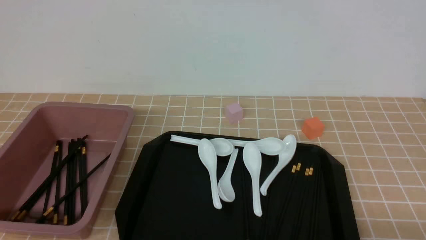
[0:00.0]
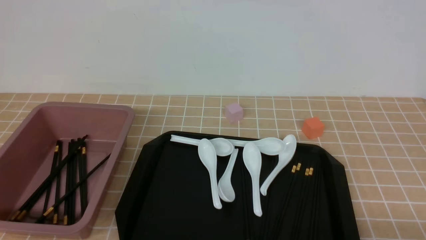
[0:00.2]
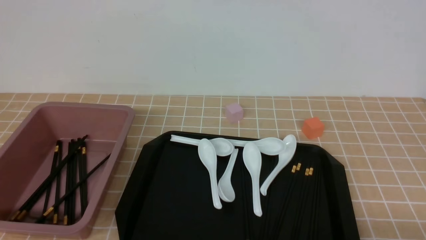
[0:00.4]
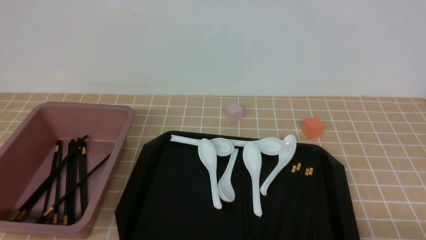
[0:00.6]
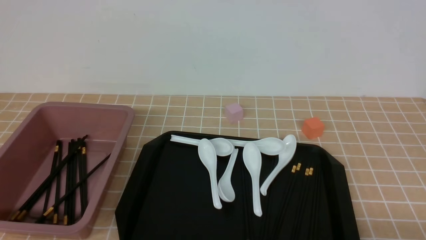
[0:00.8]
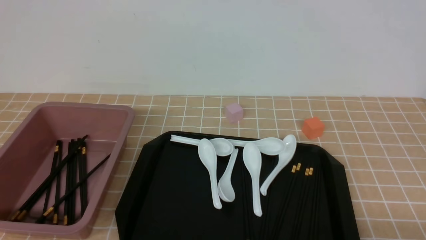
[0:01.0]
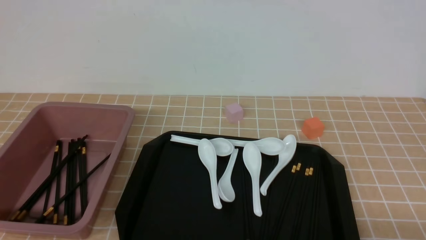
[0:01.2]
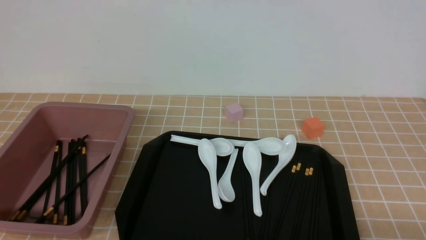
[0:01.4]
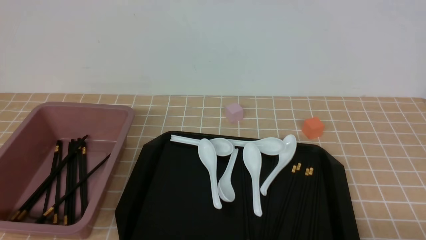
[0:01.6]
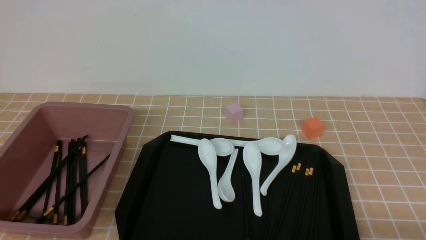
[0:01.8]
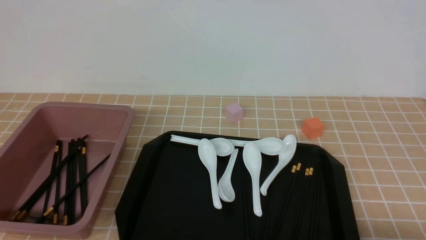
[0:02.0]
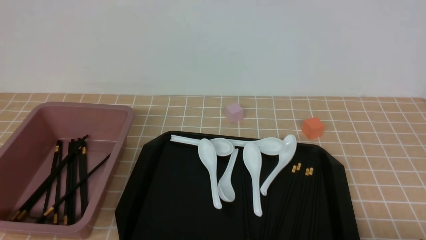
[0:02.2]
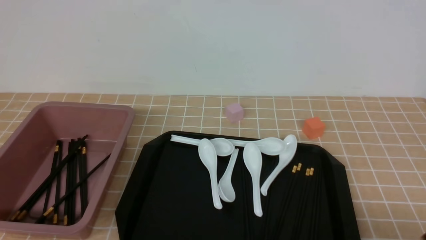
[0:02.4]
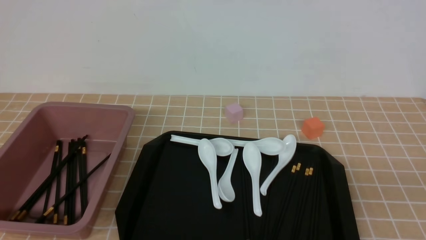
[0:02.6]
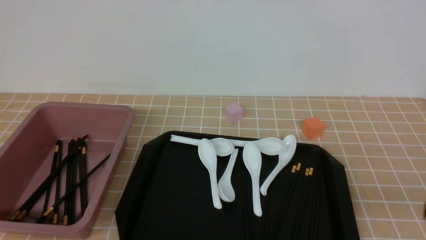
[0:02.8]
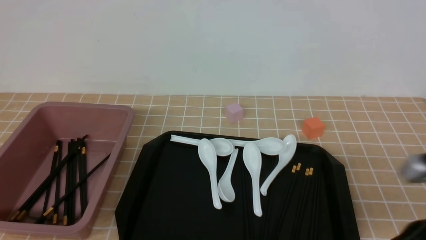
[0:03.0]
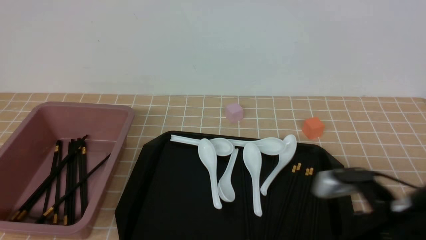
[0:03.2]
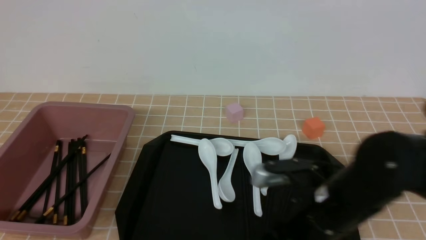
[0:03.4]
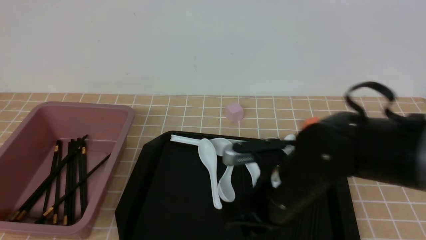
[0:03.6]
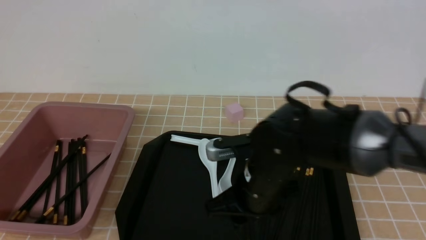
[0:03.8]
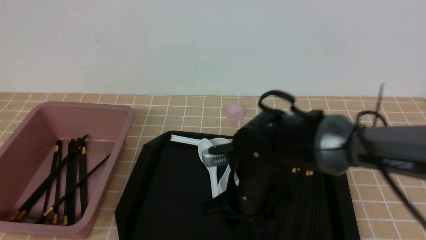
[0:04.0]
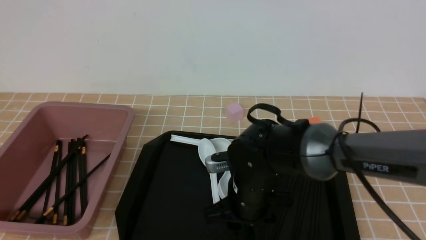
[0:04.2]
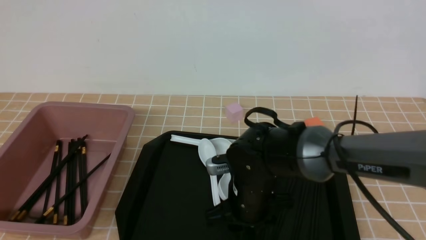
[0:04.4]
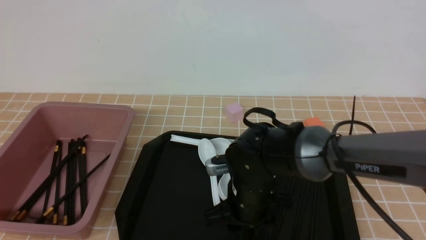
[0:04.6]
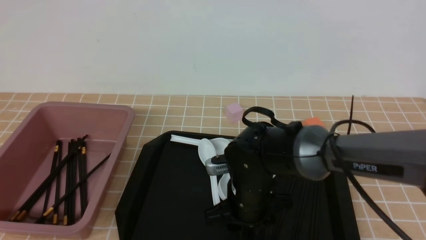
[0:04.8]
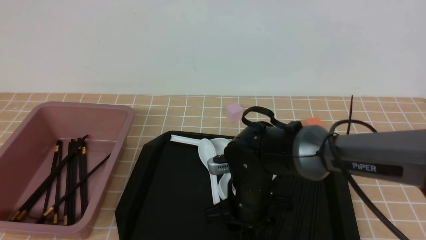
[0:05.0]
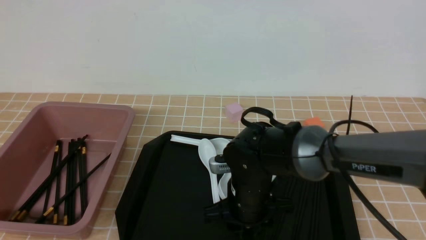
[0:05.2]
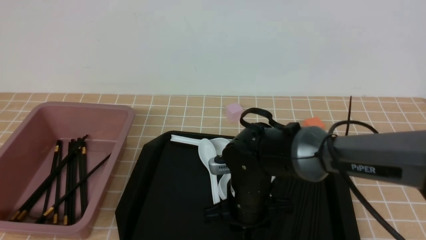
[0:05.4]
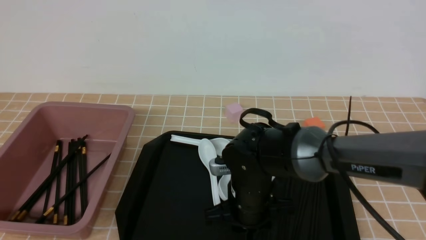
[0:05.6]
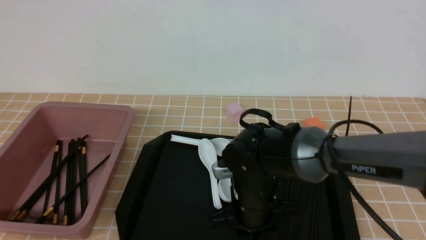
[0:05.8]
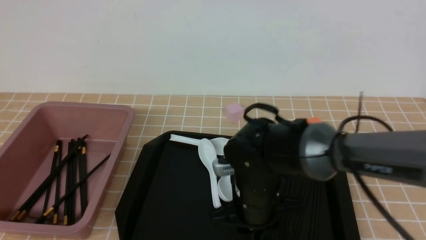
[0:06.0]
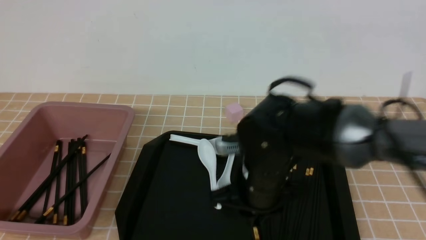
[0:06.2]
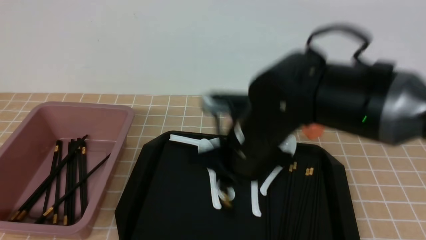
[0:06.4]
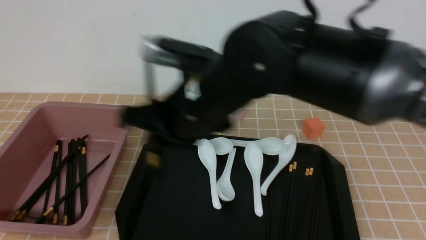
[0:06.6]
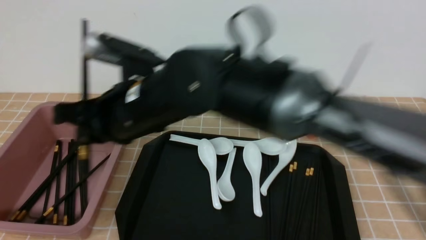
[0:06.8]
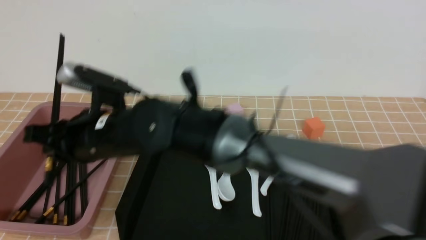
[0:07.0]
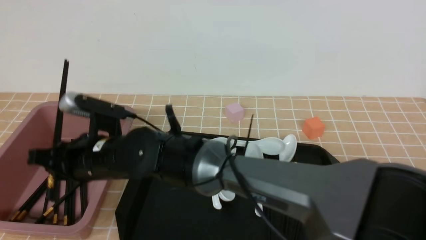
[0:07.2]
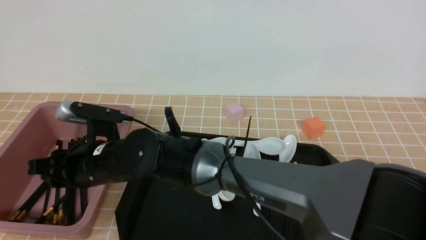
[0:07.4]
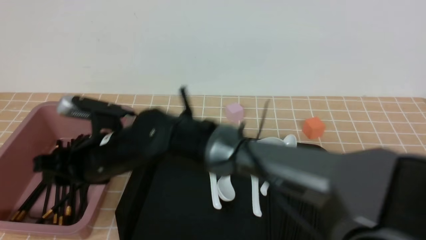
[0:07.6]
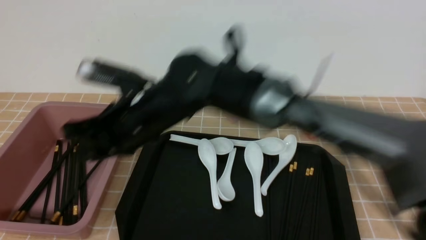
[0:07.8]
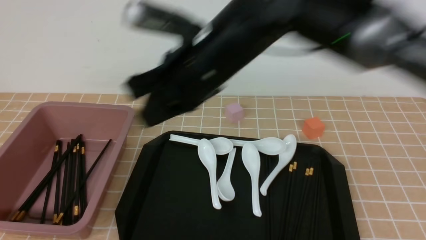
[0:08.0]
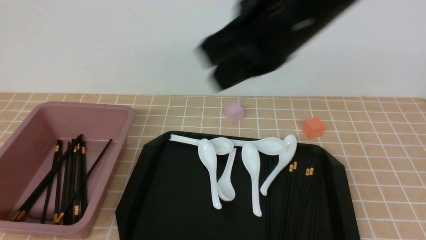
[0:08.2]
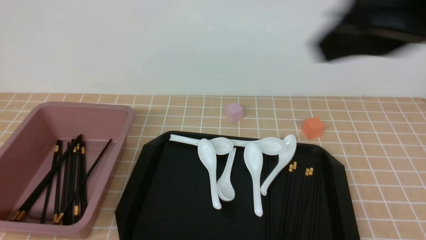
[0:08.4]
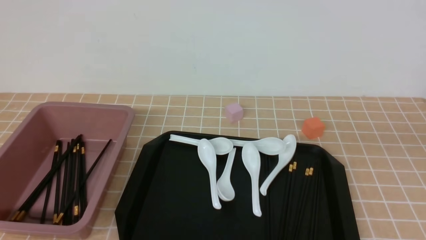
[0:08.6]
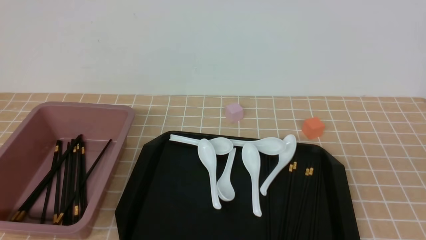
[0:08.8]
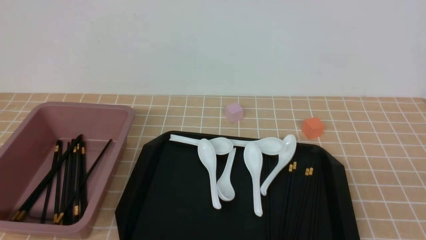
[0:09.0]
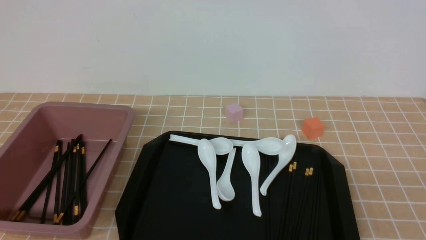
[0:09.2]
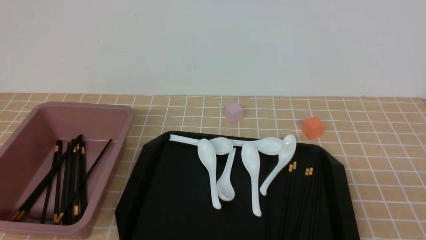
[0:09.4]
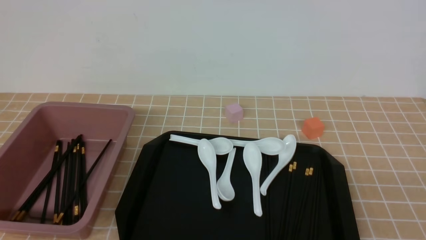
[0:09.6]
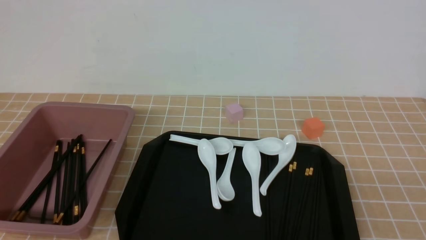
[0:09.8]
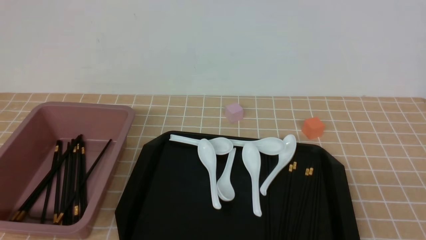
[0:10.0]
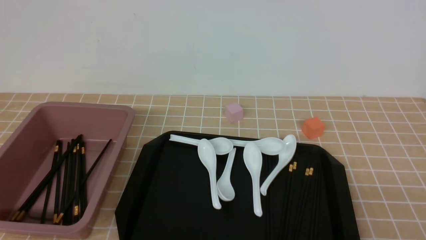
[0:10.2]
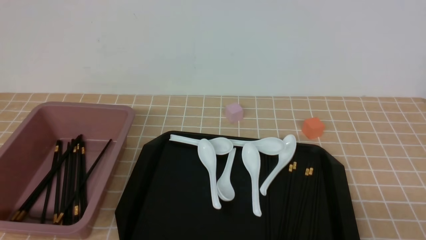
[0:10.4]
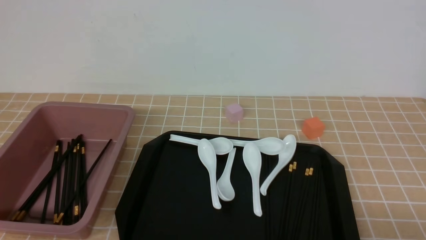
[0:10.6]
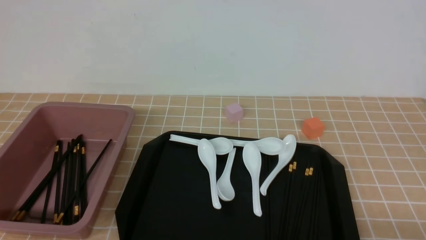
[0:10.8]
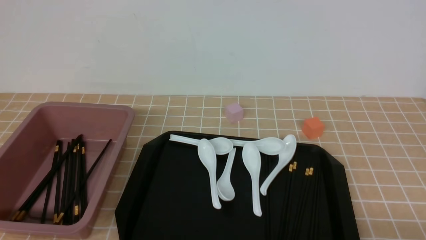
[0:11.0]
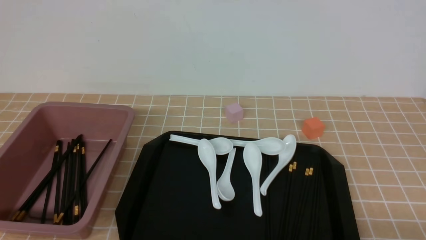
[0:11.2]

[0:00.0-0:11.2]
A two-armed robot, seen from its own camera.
Step, 0:00.0 to 0:06.2: use the right arm to grab a pair of chopsticks.
Step, 0:06.6 to 0:07.8: use the right arm to put the chopsticks into the lunch box.
0:00.0 to 0:01.6: Both grippers stay about where they are.
0:01.6 to 0:03.2: The right gripper travels forward, to the left and upward by roughly 20 cm, and closes its fingers.
0:03.2 to 0:04.8: The right gripper is displaced to the left, forward and downward by some 20 cm, and opens its fingers.
0:04.8 to 0:06.4: The right gripper is displaced upward by some 15 cm, and closes.
0:06.4 to 0:08.0: The right gripper is displaced upward by approximately 10 cm, and opens and closes again.
0:08.0 to 0:09.6: The right gripper moves to the right and backward, roughly 40 cm.

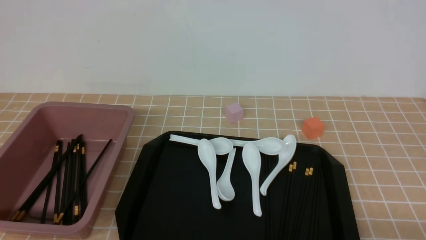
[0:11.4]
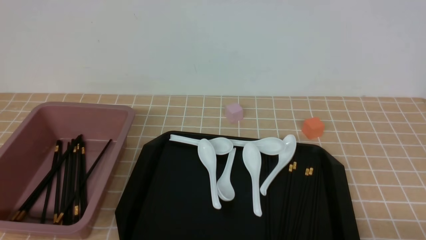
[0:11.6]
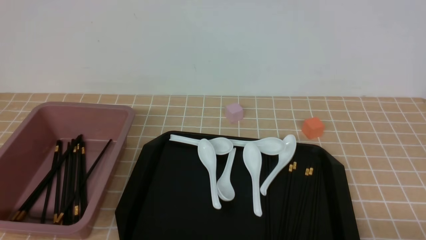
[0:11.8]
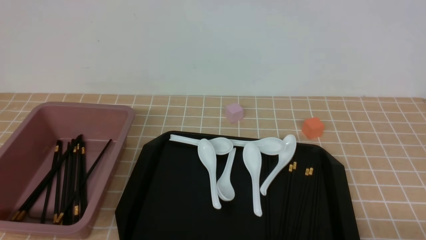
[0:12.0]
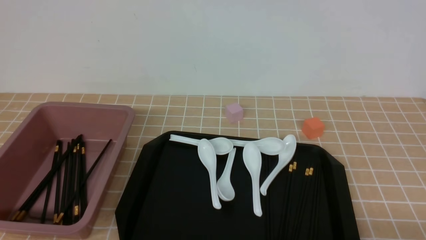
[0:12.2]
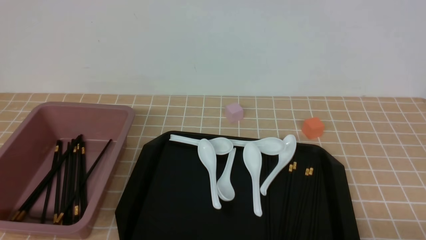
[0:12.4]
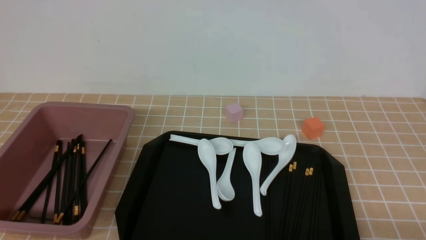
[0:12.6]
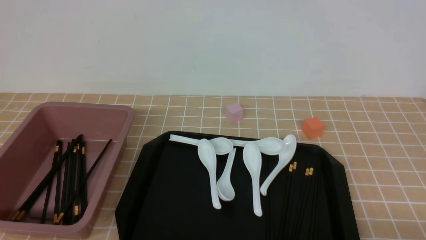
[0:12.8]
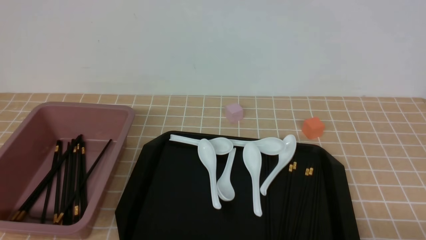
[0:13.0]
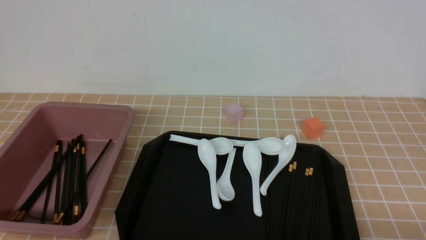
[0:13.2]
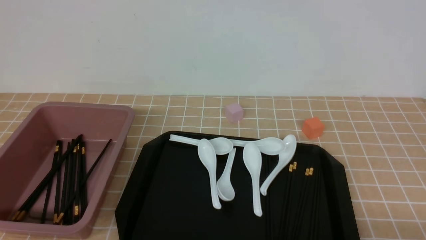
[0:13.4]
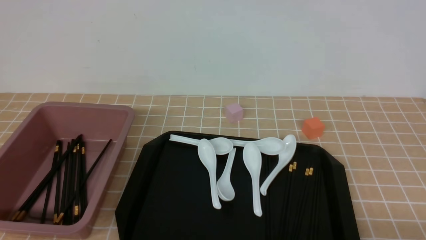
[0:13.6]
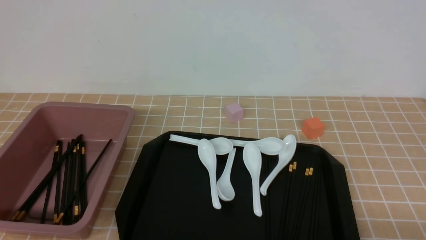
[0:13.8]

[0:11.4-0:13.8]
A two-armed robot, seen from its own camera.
0:11.4 to 0:13.8: Both grippers stay put.
